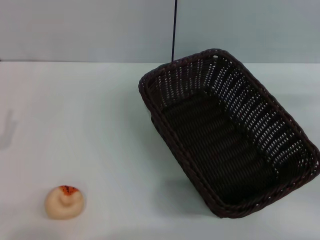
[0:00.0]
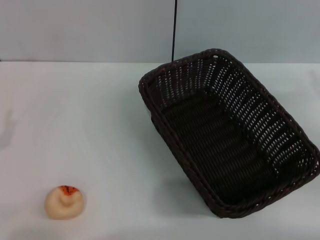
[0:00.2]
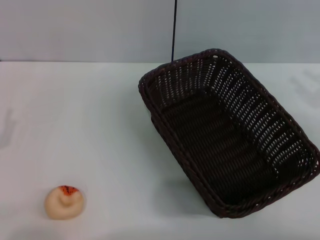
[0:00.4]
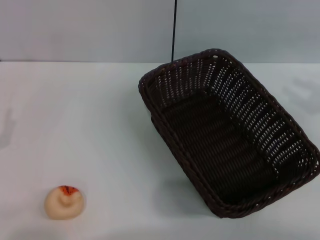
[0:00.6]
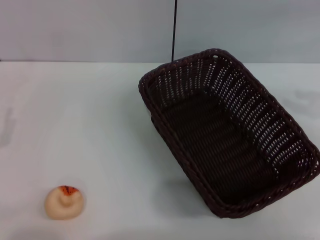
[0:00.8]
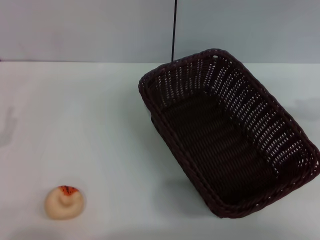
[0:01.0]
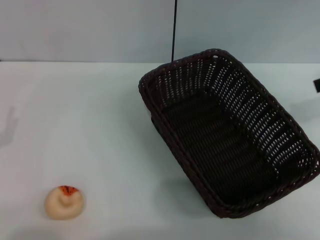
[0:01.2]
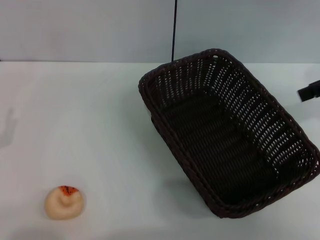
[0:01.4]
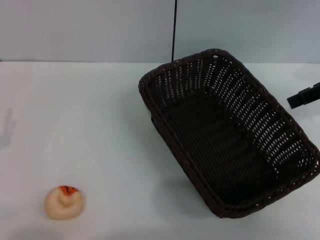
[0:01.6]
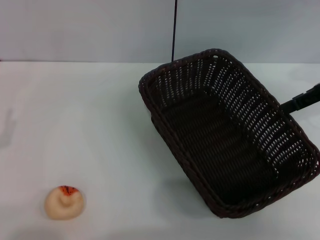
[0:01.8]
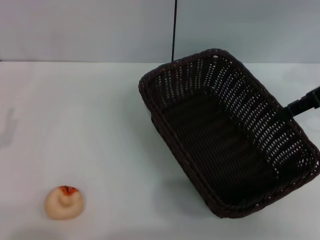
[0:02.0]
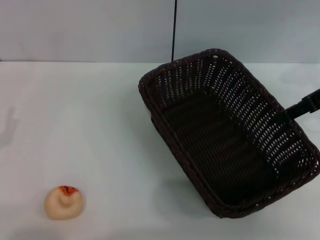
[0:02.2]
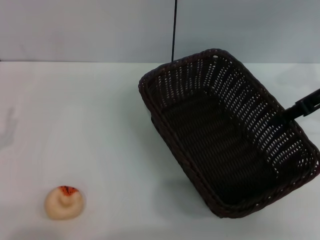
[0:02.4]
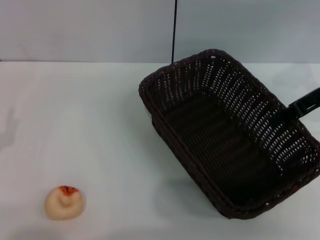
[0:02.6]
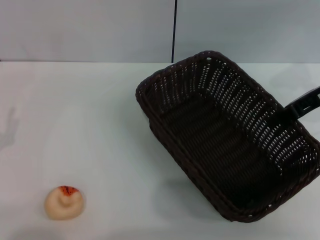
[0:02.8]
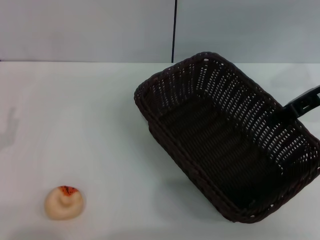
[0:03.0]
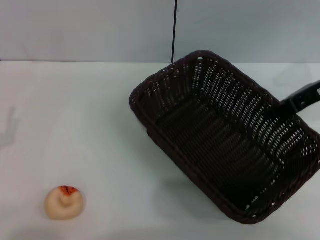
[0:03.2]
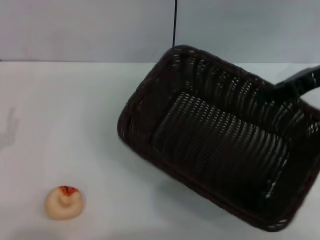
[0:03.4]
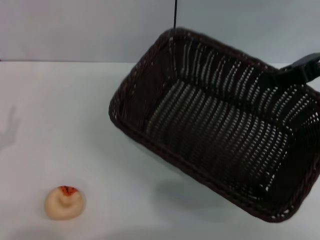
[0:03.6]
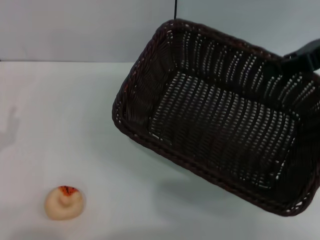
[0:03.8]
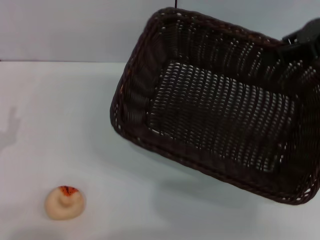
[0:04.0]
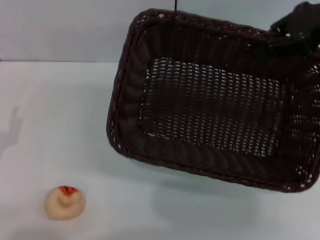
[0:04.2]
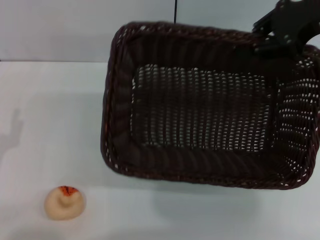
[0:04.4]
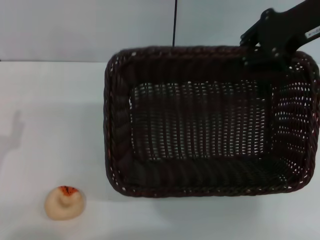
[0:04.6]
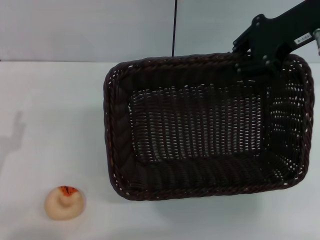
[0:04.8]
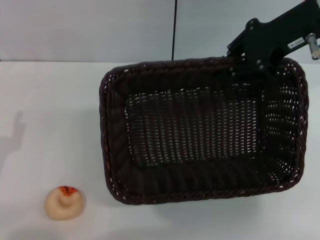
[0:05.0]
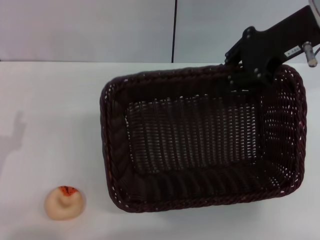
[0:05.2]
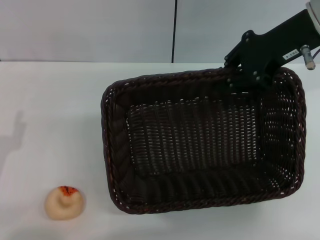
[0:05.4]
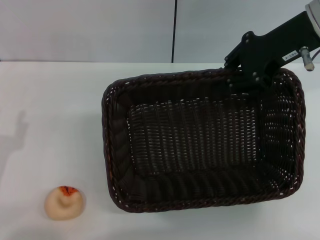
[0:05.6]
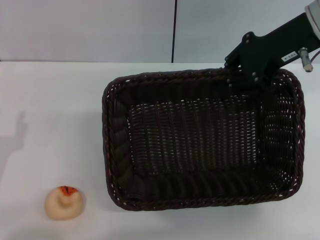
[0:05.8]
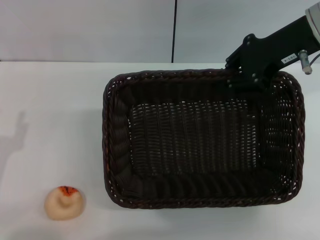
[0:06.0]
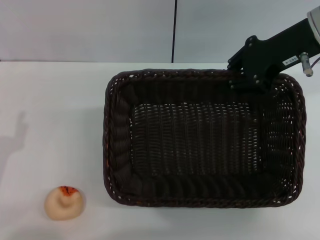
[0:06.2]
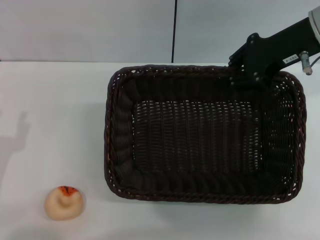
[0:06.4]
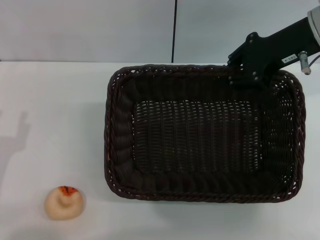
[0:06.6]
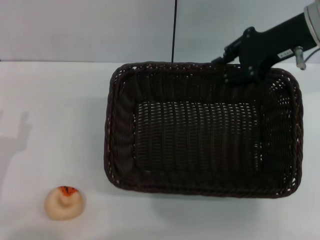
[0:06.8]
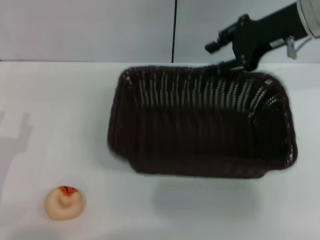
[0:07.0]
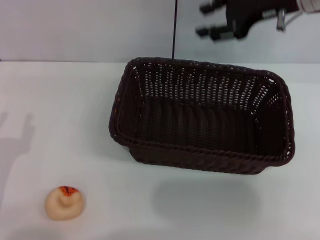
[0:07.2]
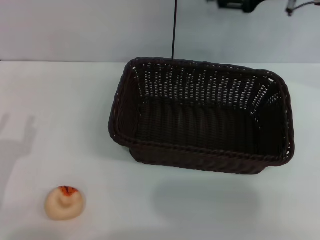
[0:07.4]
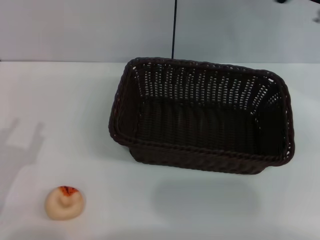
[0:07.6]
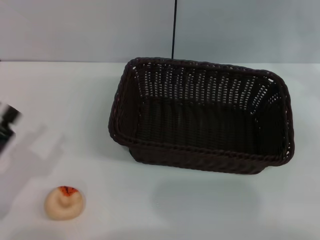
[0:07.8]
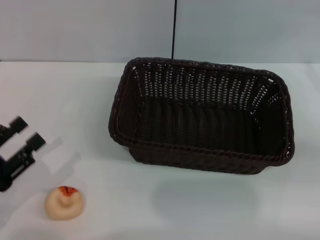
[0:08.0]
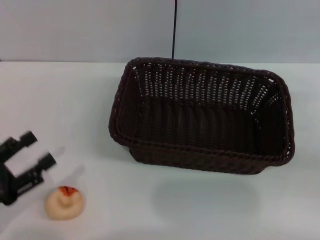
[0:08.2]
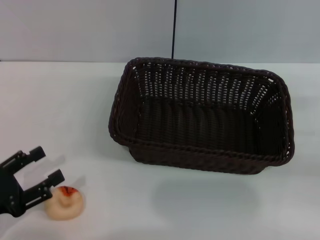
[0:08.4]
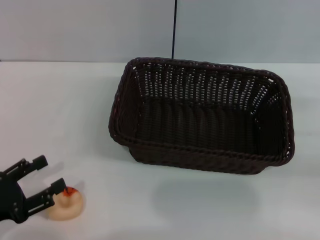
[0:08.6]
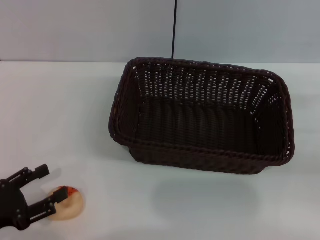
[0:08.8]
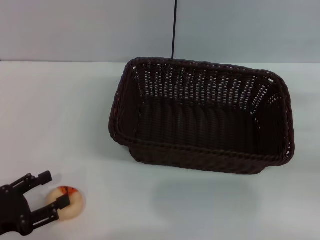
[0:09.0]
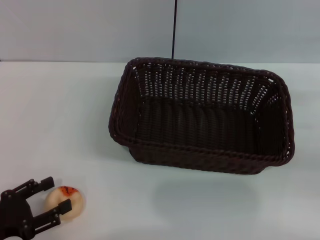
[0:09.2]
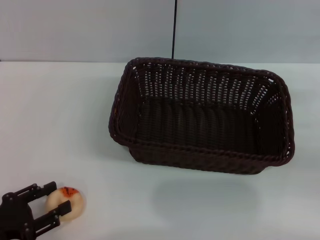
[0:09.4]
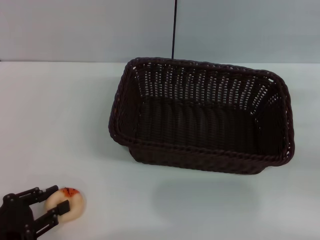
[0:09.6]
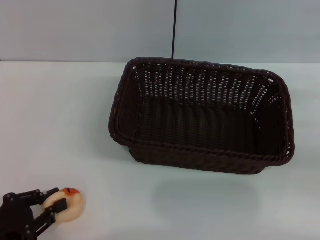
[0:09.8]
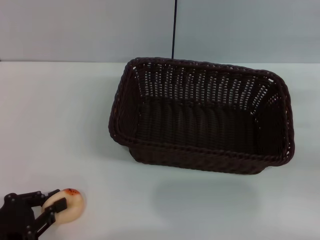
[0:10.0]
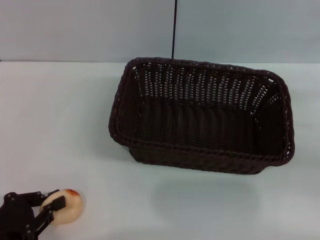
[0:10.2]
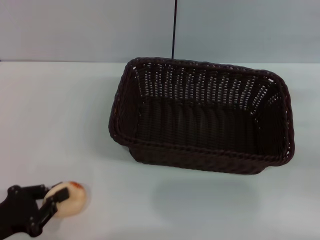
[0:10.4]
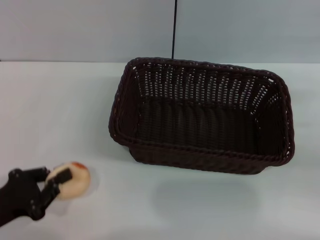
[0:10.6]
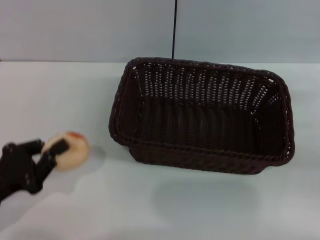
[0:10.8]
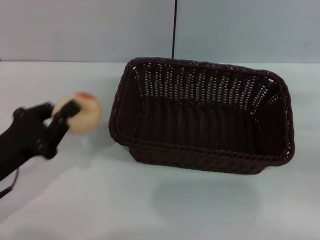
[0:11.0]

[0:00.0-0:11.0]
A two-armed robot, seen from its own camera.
Step, 0:00.0 to 0:07.0: Move the basket to the center of view with the right gripper.
Step, 0:07.2 to 0:10.6: Pick up the egg yolk pastry with the left gripper.
0:00.0 to 0:01.6: The right gripper shifts about 15 cm upward and forward.
0:01.6 to 0:03.2: The right gripper moves approximately 5 cm, and closes up.
0:03.2 to 0:04.8: The right gripper shifts approximately 10 cm upward and to the left.
0:04.8 to 0:06.2: The grippers move only a little.
0:06.2 to 0:07.8: The right gripper heads to the right, downward and backward, covering about 15 cm, and opens its fingers.
0:09.4 to 0:11.0: The left gripper moves forward, roughly 5 cm, and closes up.

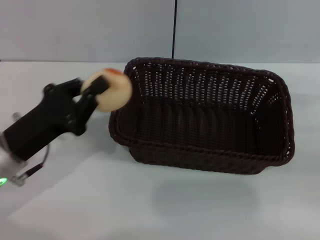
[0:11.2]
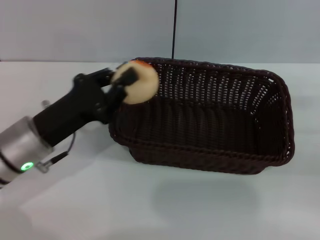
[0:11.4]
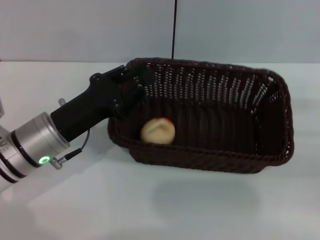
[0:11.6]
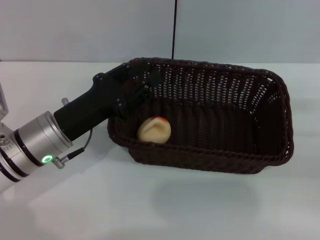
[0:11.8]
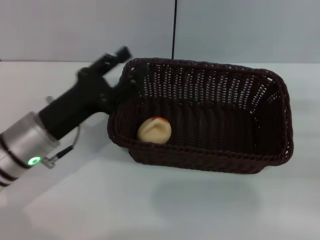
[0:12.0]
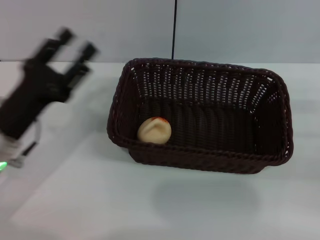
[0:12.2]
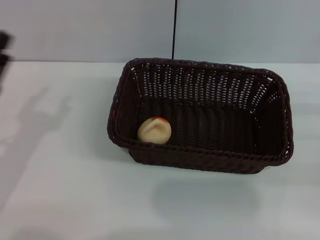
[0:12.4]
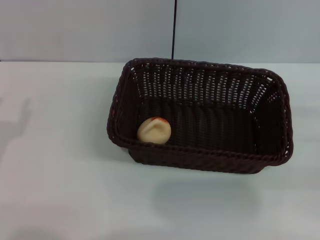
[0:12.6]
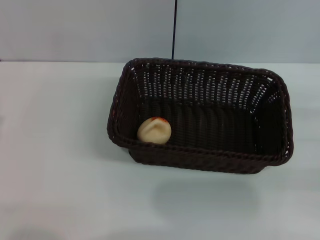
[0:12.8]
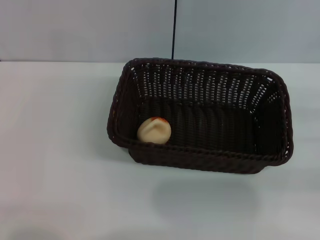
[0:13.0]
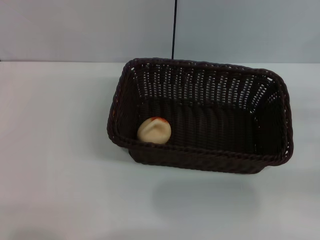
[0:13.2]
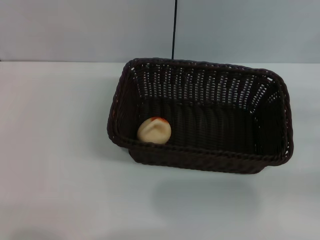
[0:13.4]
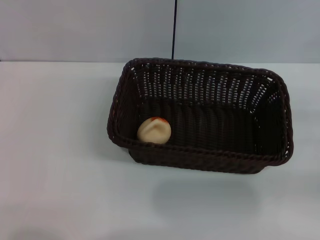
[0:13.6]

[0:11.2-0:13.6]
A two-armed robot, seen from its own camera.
Step, 0:11.2 to 0:12.0: Place the egg yolk pastry into the basket with the left gripper.
0:11.2 to 0:12.4: The left gripper moves some 5 cm to the right and comes back, and opens up.
0:12.4 to 0:13.6: The left gripper travels to the left and backward by some 10 cm.

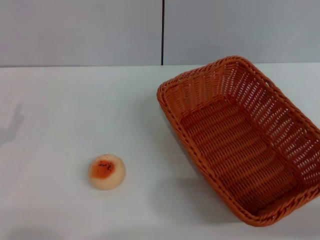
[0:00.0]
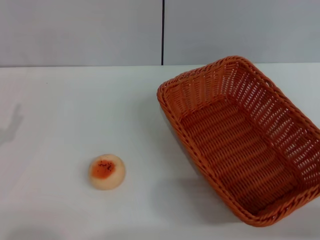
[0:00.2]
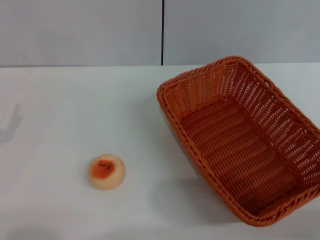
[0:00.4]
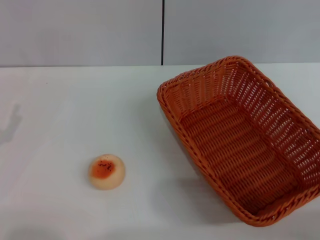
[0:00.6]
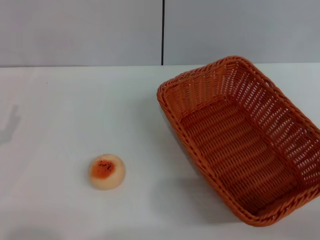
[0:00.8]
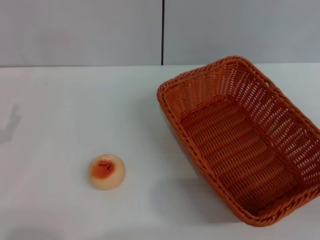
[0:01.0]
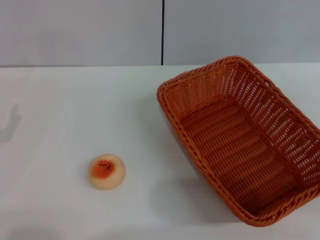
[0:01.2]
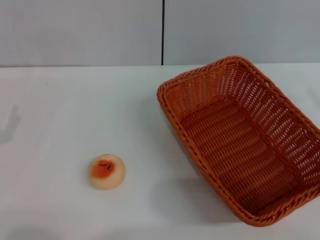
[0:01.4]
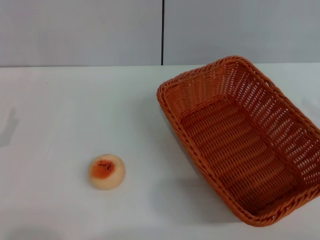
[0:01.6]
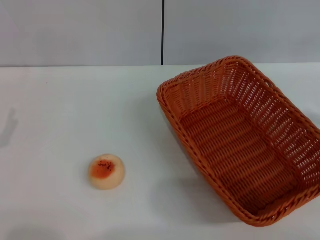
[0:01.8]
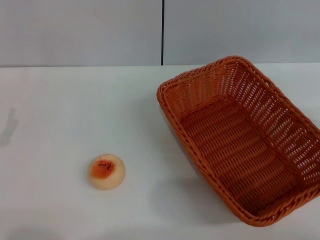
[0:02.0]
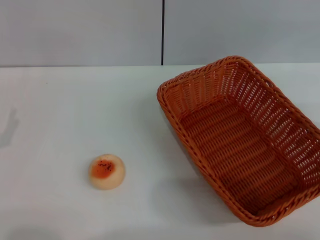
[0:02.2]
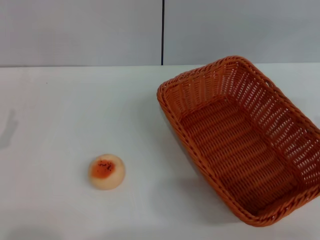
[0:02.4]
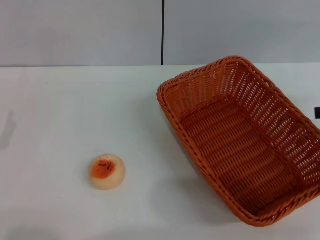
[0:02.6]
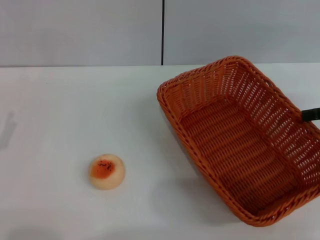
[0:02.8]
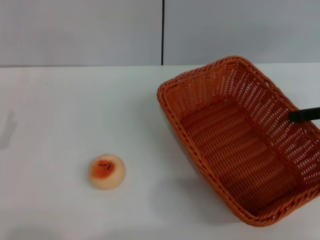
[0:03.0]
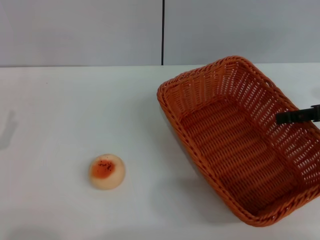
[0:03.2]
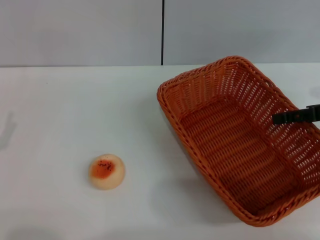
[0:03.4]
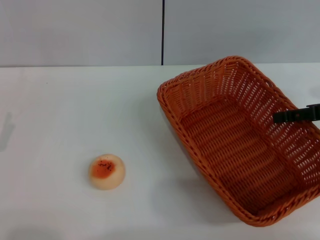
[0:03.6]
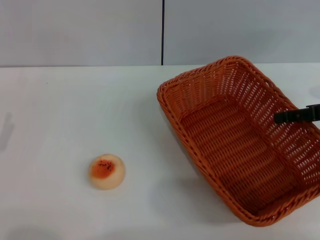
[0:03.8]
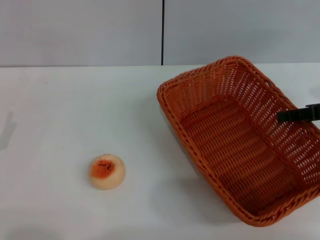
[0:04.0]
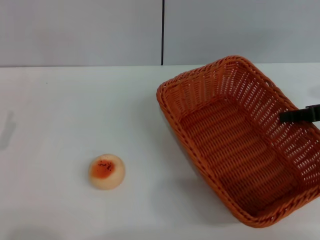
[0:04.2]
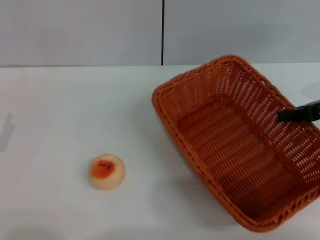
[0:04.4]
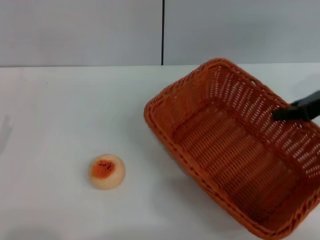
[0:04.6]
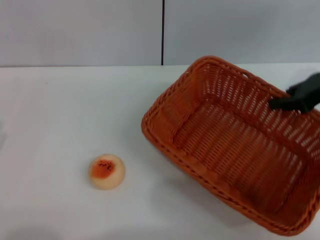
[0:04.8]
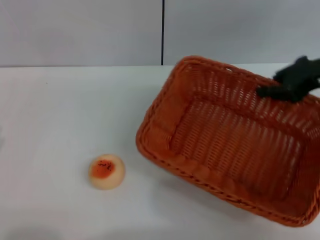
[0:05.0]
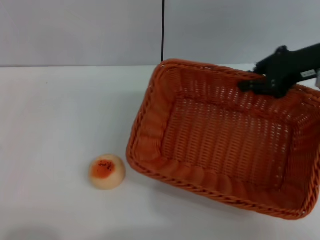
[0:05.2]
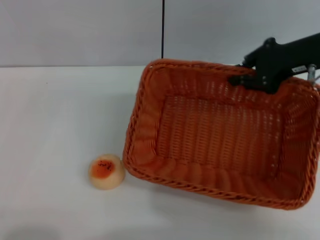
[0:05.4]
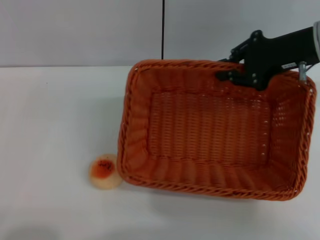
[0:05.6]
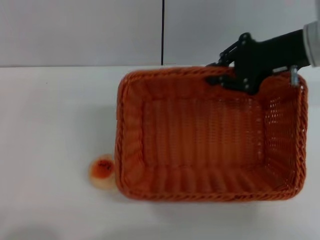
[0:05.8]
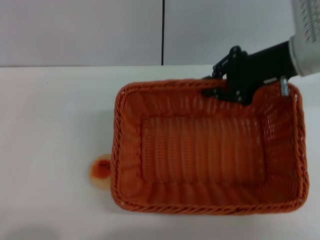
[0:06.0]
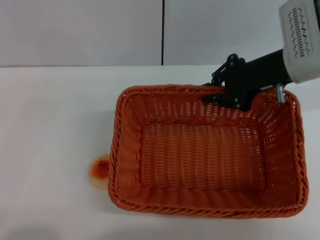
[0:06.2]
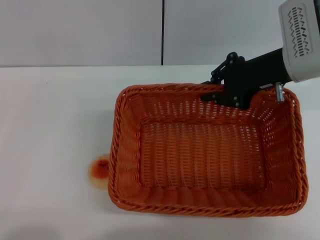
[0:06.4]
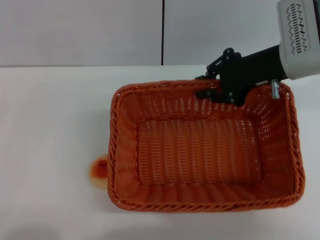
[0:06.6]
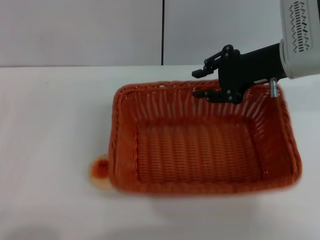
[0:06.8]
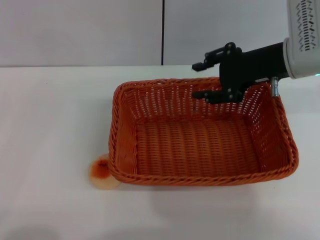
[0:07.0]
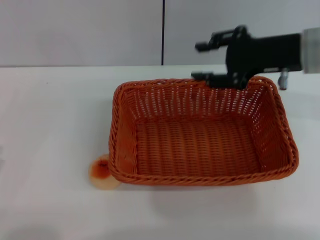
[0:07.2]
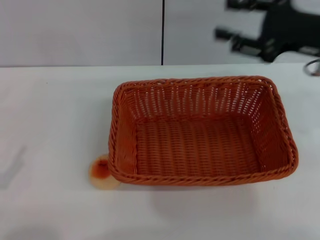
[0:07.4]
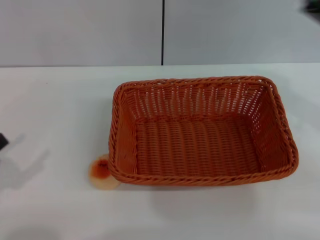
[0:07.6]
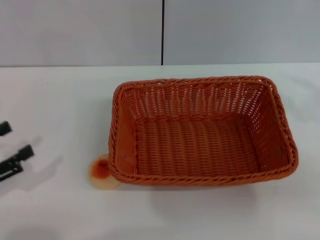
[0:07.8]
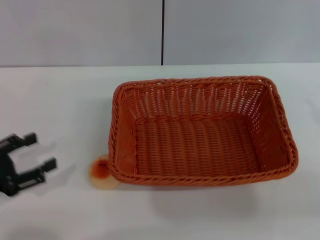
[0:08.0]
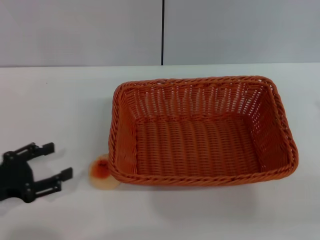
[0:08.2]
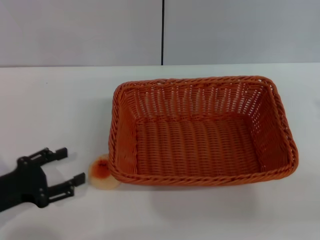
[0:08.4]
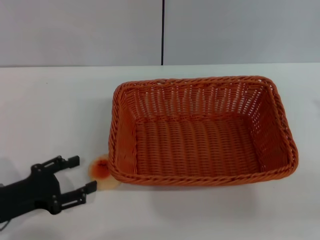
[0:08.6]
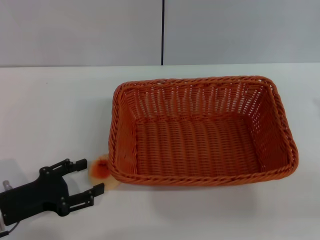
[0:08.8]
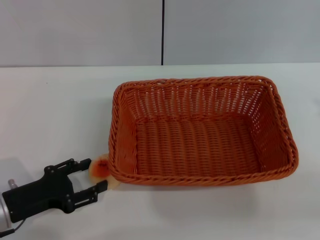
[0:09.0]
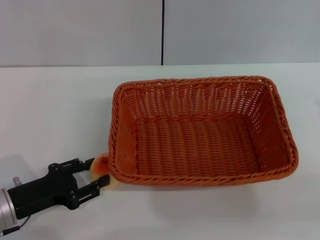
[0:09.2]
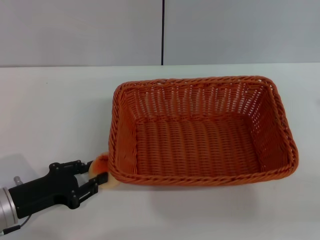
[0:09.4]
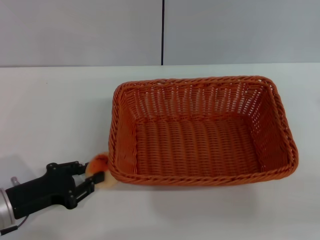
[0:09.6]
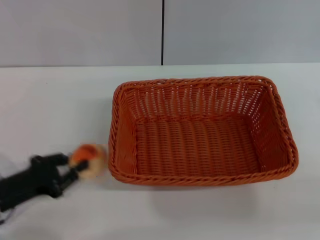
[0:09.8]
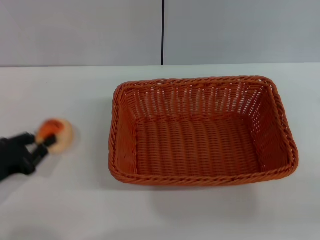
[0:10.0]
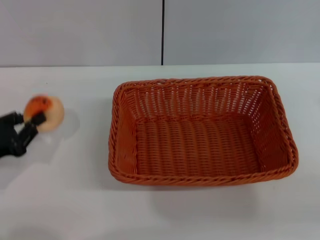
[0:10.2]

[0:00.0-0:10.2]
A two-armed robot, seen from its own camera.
Step, 0:00.0 to 0:07.0: Move the basket to the center of view with the right gripper.
Step, 0:07.2 to 0:10.2: Pick up the egg yolk pastry with the left gripper.
0:00.0 to 0:01.4: The right gripper moves to the right and upward, approximately 10 cm.
0:03.0 to 0:04.4: The right gripper closes its fingers.
0:04.4 to 0:05.8: The left gripper goes roughly 10 cm backward. The right gripper goes about 10 cm to the left.
0:05.8 to 0:07.2: The right gripper opens up.
0:07.2 to 0:08.8: The right gripper heads backward and to the right, covering some 20 cm. Meanwhile the left gripper moves forward and to the right, approximately 10 cm.
0:08.8 to 0:10.2: The left gripper ends up about 5 cm from where it was, and closes up.
